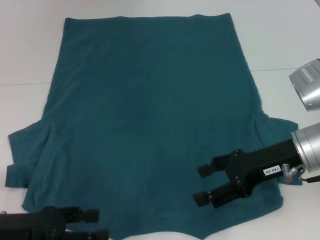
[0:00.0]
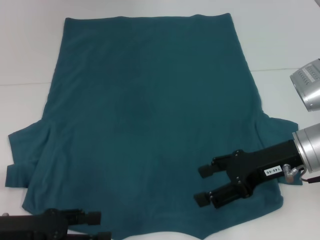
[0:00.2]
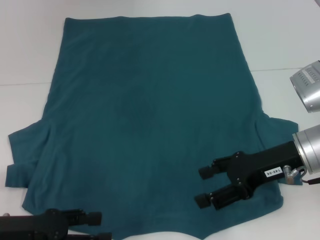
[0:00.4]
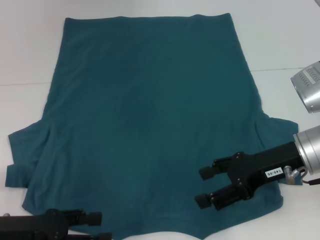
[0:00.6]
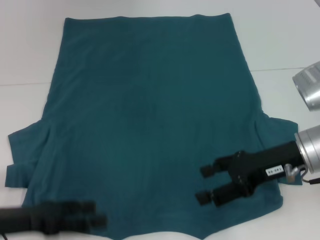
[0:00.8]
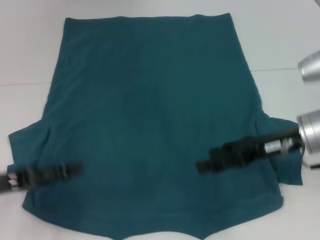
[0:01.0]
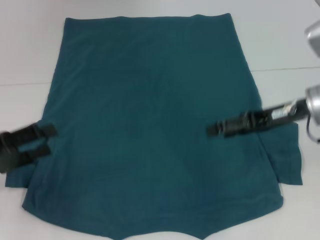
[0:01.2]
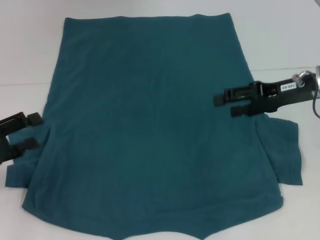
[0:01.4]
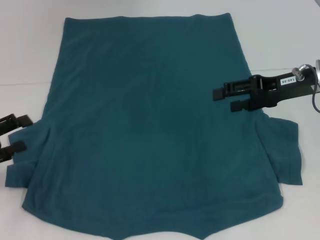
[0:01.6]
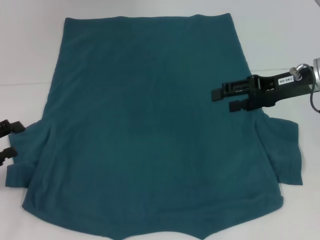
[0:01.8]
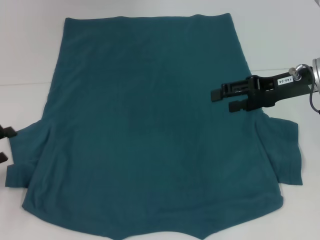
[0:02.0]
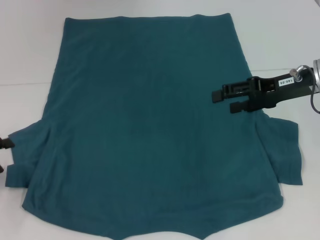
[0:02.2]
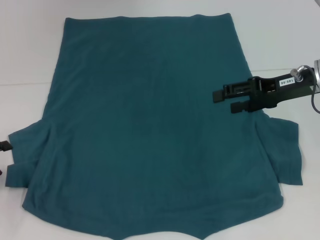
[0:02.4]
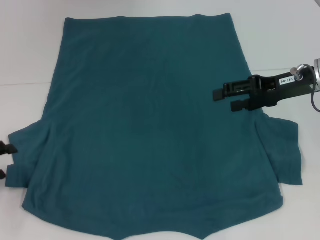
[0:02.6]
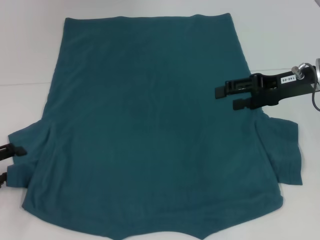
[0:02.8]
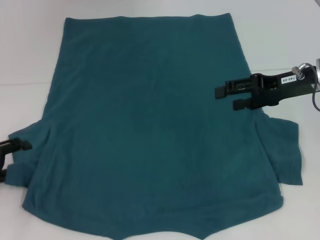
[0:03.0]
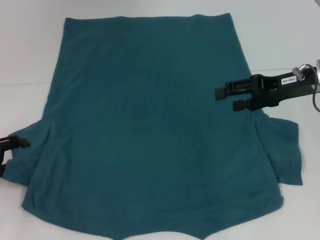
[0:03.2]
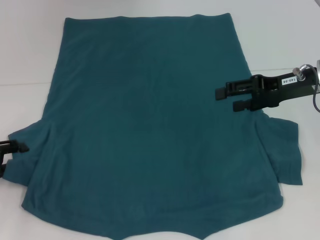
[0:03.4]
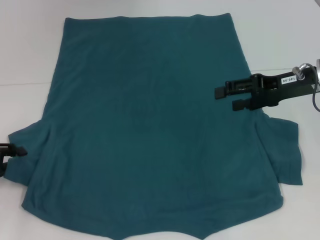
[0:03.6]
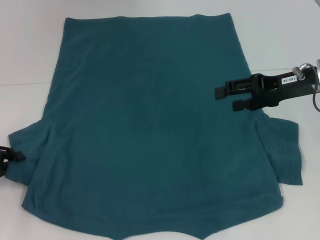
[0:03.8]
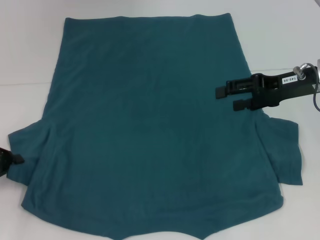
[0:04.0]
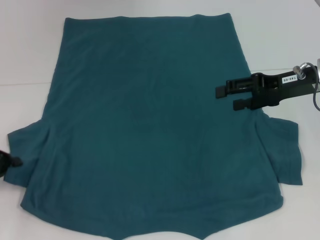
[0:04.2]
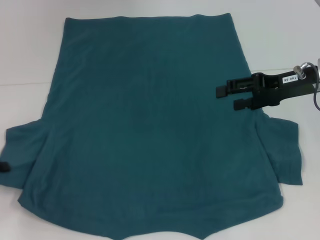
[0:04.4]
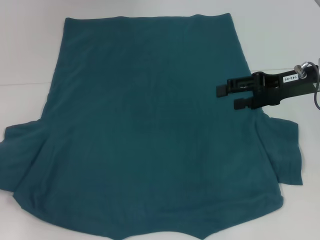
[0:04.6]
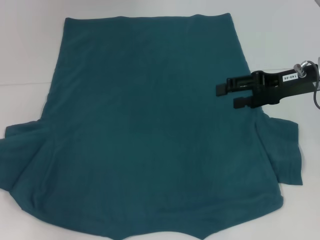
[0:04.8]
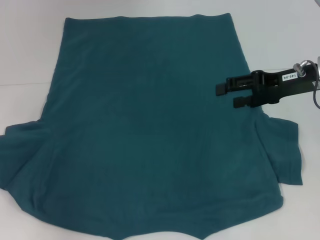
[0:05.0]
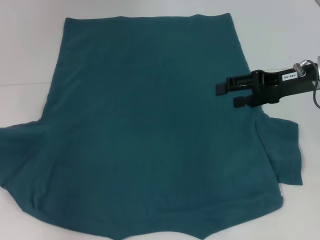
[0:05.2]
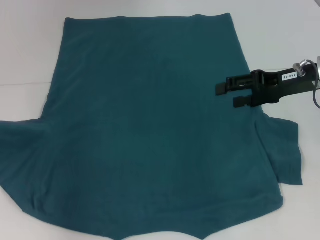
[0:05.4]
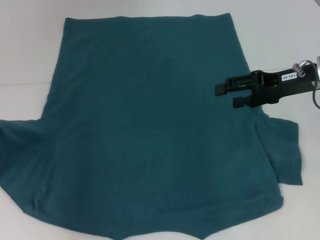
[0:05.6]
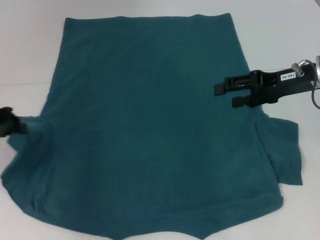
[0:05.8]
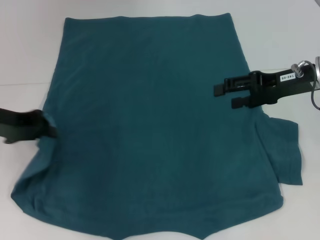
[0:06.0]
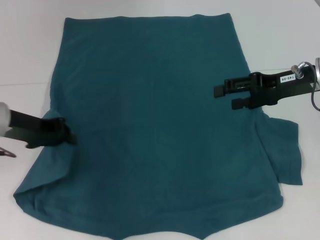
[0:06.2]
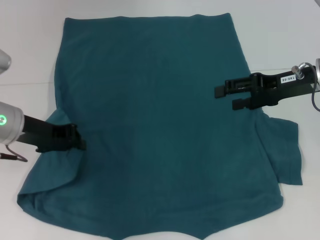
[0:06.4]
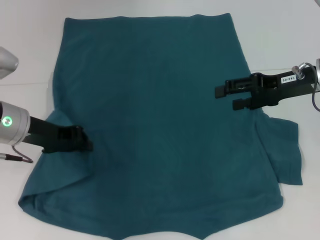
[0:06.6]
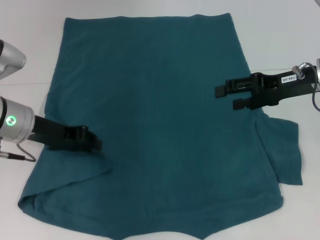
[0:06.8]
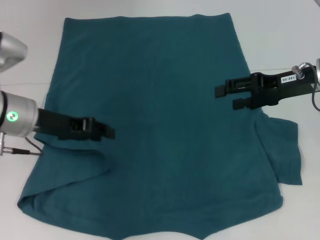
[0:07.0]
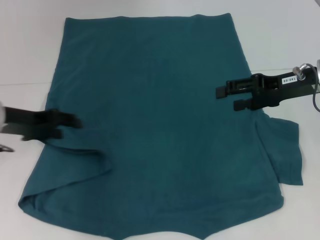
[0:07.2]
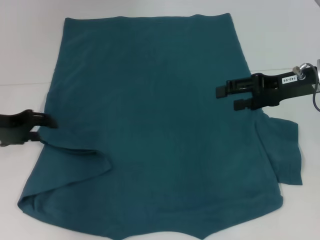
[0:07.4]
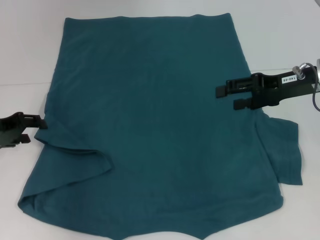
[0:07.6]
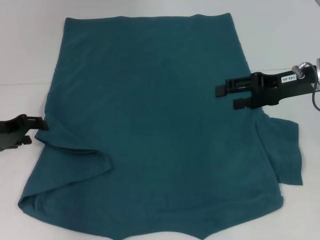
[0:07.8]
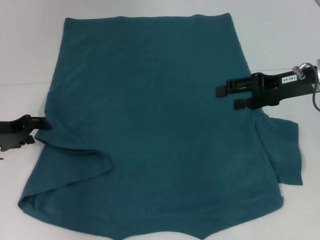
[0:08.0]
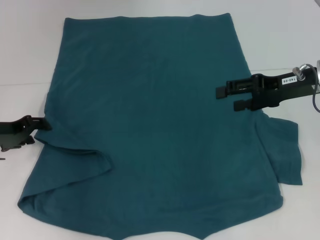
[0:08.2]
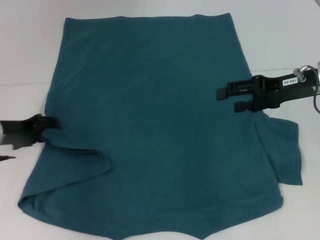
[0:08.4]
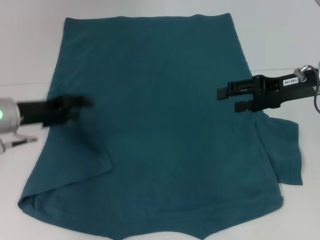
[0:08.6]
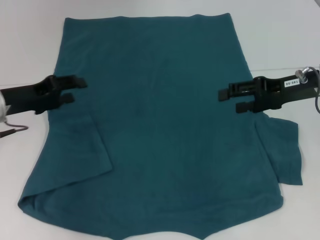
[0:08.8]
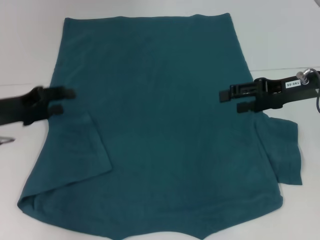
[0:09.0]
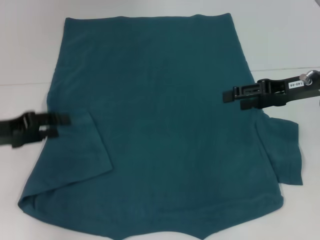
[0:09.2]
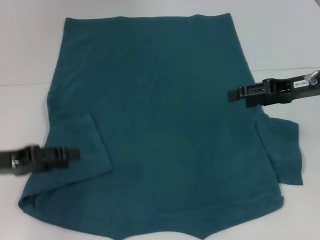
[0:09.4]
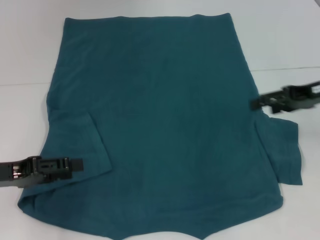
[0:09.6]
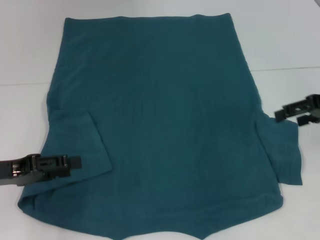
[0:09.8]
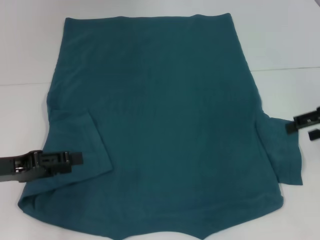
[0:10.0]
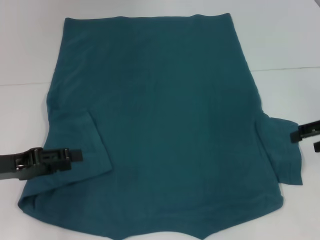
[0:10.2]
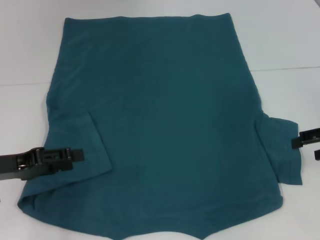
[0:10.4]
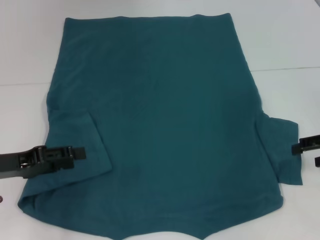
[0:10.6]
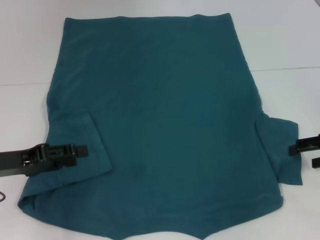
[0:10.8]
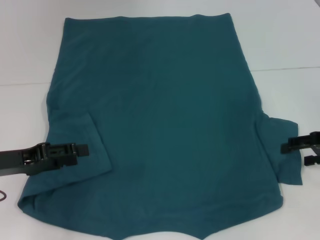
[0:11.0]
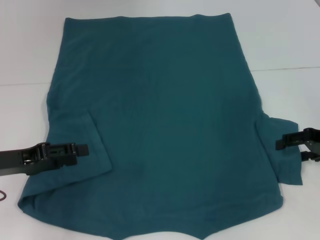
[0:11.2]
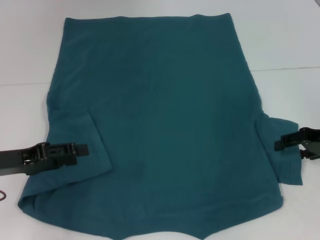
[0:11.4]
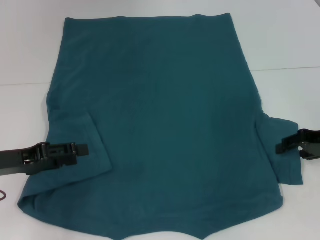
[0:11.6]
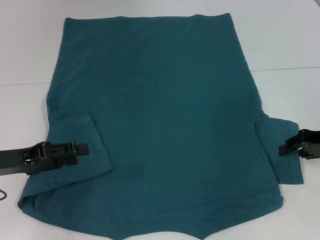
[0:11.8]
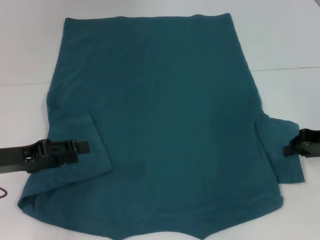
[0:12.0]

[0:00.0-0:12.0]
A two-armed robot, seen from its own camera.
Step, 0:00.0 to 0:08.8: Fold the bottom left sleeve with your left hand.
0:00.0 to 0:01.6: The right gripper moves forward, approximately 10 cm. The left gripper travels to the left and forward by approximately 10 cm.
0:01.6 to 0:03.0: There are only small adjustments of the grippers.
0:03.0 to 0:04.4: The left gripper closes.
0:04.4 to 0:06.0: The left gripper shifts approximately 15 cm to the right, upward and forward.
0:06.0 to 0:07.6: The left gripper reaches roughly 5 cm to the right, then returns, and opens its fingers.
0:09.0 to 0:10.4: The right gripper shifts some 10 cm to the right. The left gripper shifts about 5 cm backward.
0:10.4 to 0:12.0: The right gripper closes its fingers.

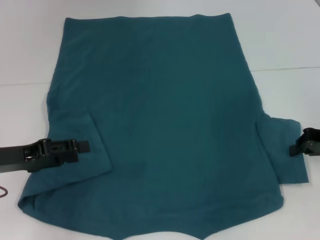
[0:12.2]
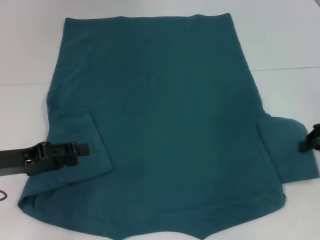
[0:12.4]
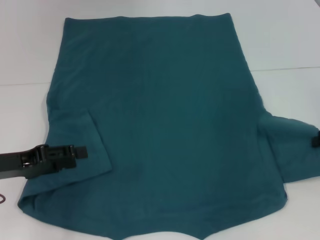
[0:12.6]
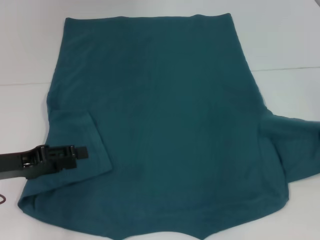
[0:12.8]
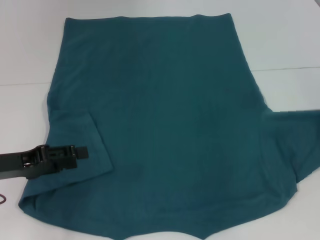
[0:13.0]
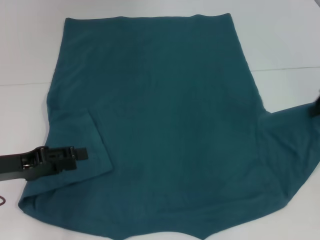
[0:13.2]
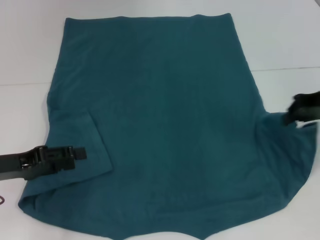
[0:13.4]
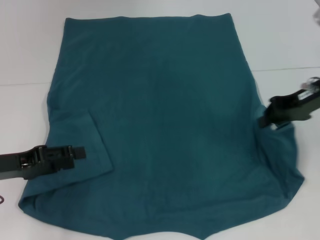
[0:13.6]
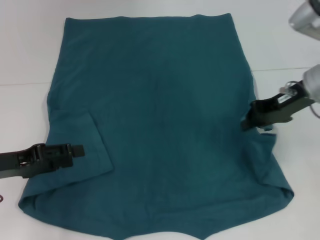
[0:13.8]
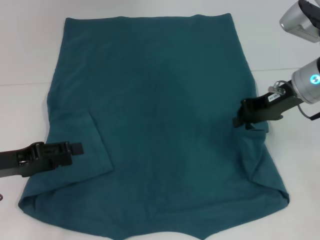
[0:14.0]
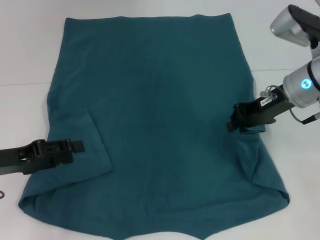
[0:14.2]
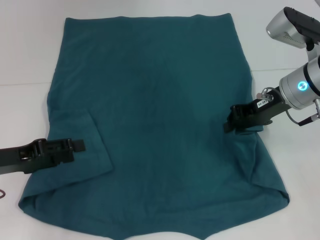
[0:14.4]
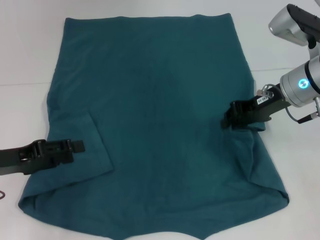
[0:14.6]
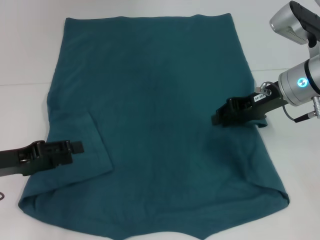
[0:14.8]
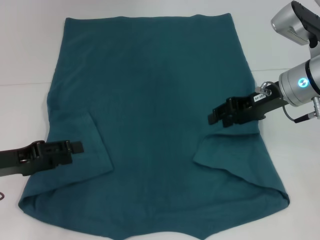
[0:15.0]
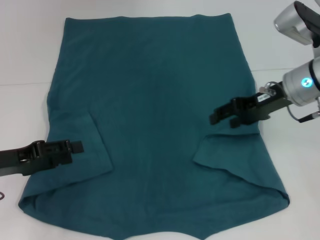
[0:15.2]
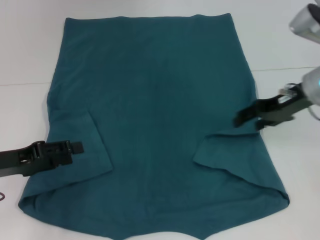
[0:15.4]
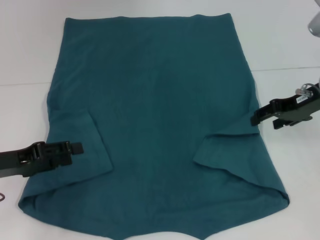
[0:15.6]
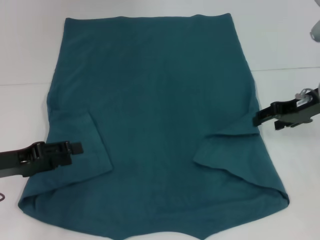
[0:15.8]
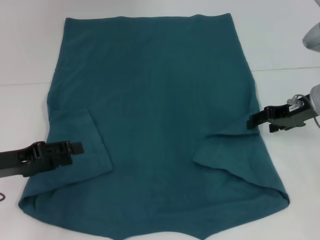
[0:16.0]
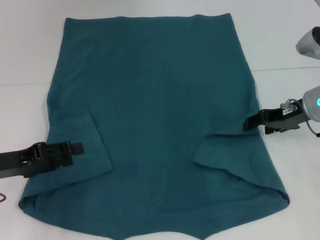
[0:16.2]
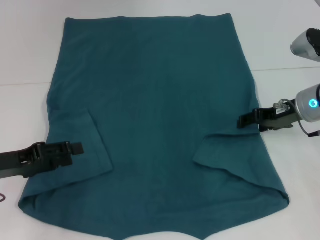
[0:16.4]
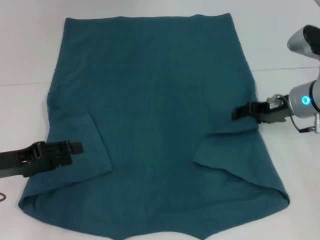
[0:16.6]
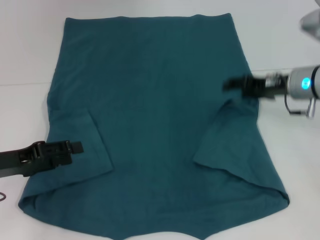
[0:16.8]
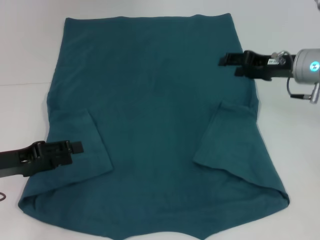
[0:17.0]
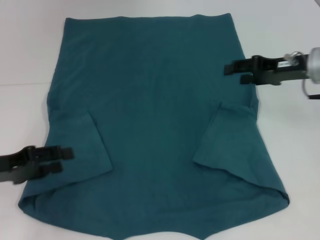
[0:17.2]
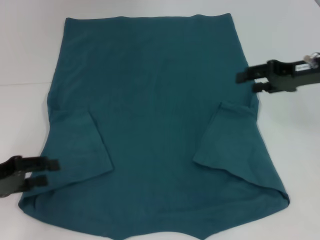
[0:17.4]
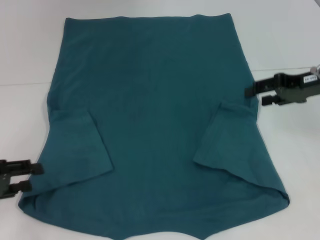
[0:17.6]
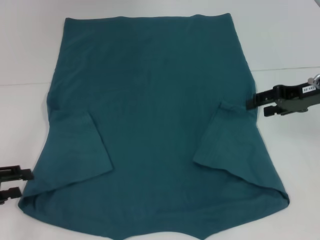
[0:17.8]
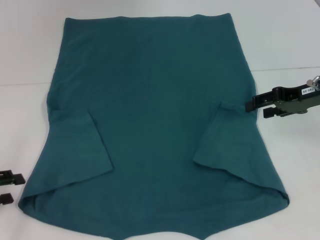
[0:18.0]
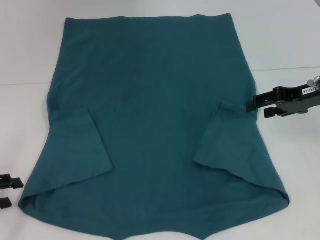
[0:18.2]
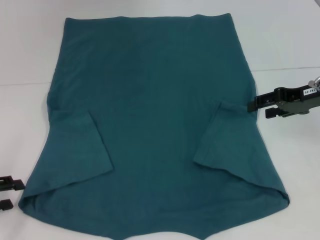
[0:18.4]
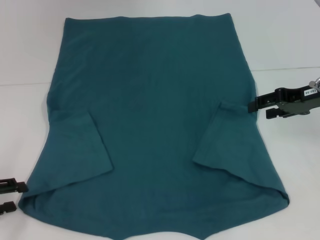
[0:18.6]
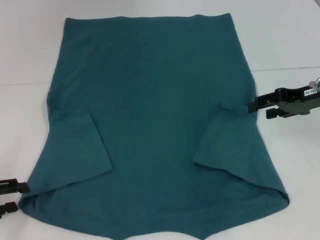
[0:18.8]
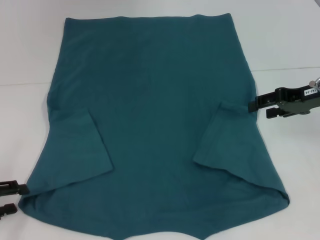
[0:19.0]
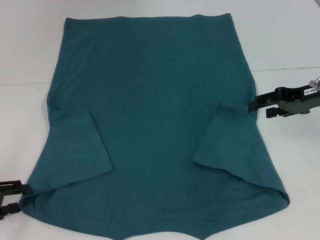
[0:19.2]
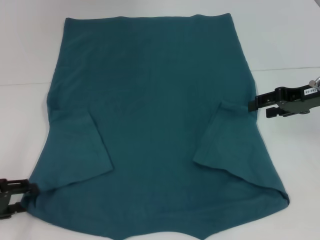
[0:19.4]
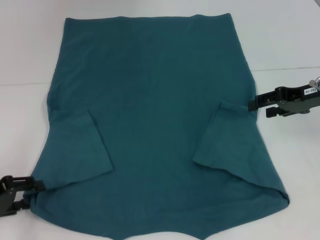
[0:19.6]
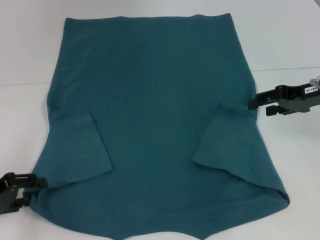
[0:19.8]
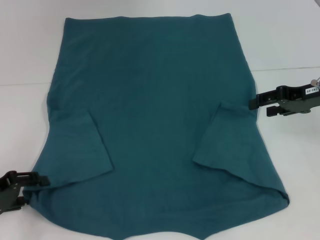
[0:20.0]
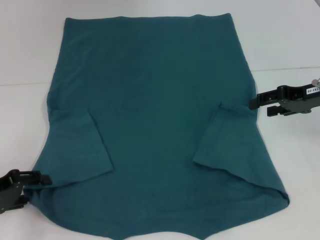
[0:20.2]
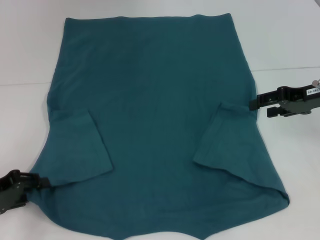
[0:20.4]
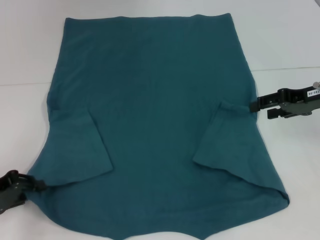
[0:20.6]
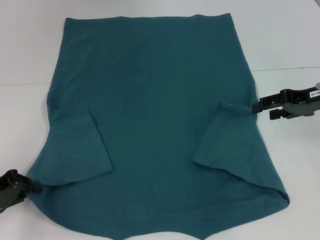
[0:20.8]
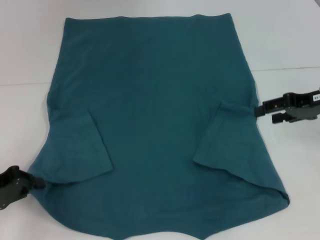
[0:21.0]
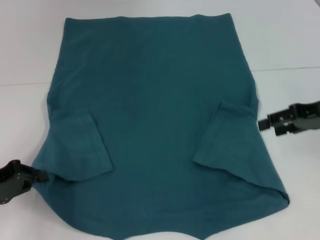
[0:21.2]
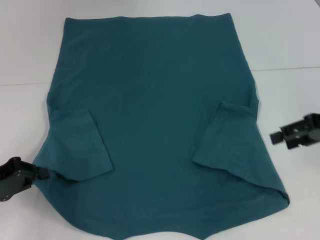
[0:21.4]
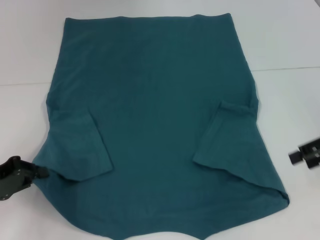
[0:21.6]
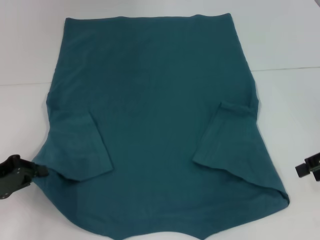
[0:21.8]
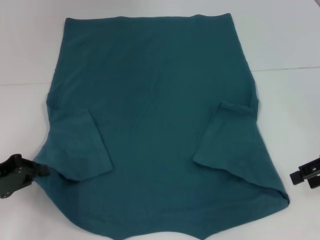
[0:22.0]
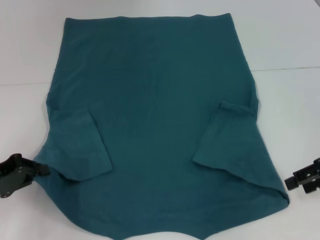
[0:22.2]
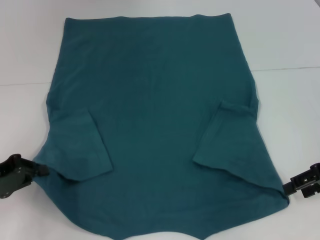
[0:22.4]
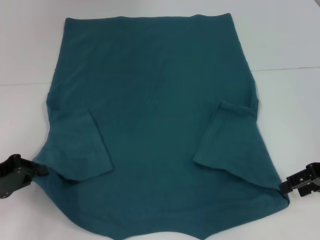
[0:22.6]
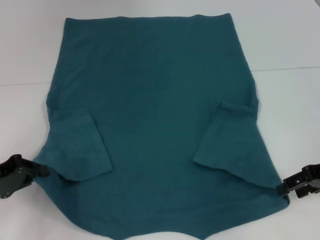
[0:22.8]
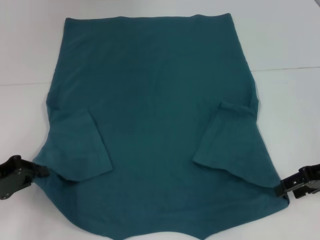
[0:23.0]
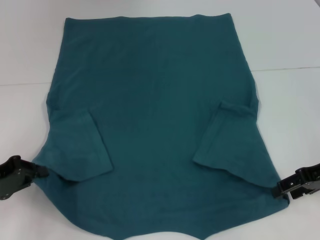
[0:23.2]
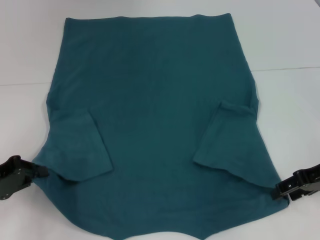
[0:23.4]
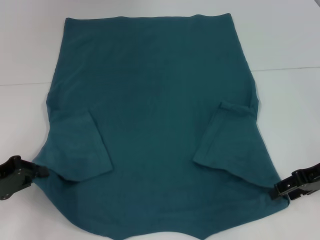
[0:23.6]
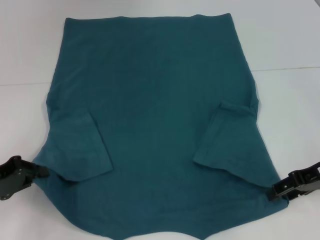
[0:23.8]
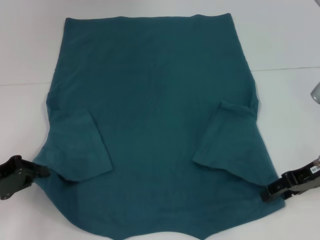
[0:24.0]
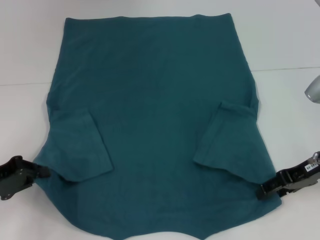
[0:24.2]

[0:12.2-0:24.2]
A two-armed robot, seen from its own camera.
Step, 0:12.2 to 0:17.0: Fold the bottom right sleeve to the right.
Step, 0:17.2 to 0:20.8: Grab the bottom left corner with your left hand.
0:12.2 to 0:13.8: The right gripper is displaced to the left, upward and forward by some 10 cm.
0:13.8 to 0:15.2: The right gripper opens up.
0:15.2 to 0:16.6: The right gripper changes place by some 5 cm.
0:16.6 to 0:18.2: The right gripper travels to the right by about 5 cm, while the left gripper goes roughly 5 cm to the left.
0:18.2 to 0:19.8: The grippers make only small movements.
0:19.8 to 0:21.2: The left gripper closes.
0:21.2 to 0:22.6: The right gripper changes place by approximately 5 cm.
0:22.6 to 0:24.2: The right gripper shifts by about 5 cm.
